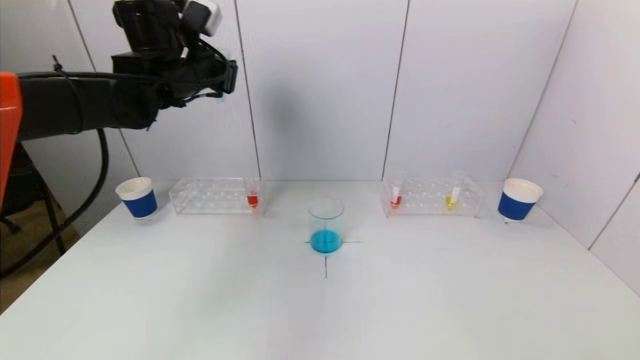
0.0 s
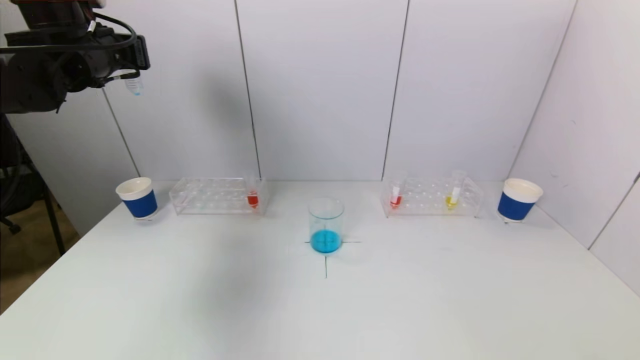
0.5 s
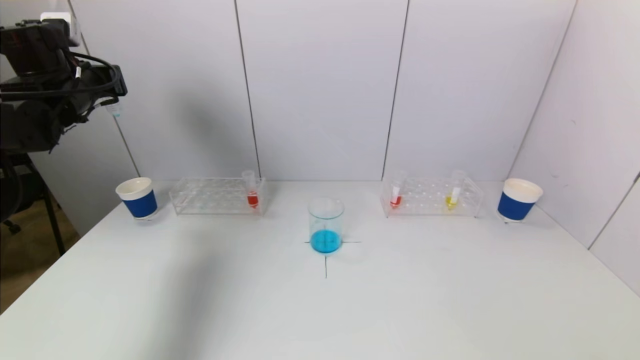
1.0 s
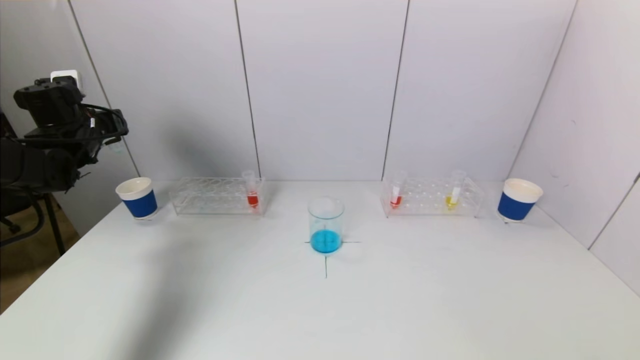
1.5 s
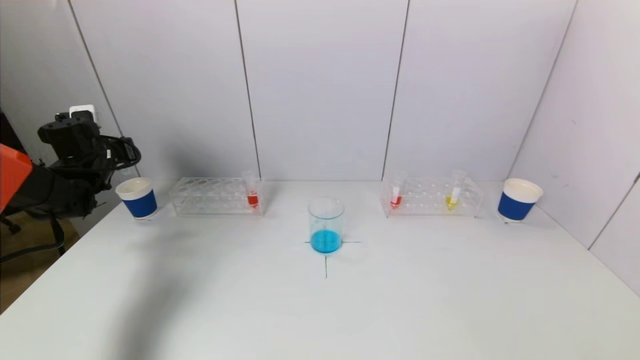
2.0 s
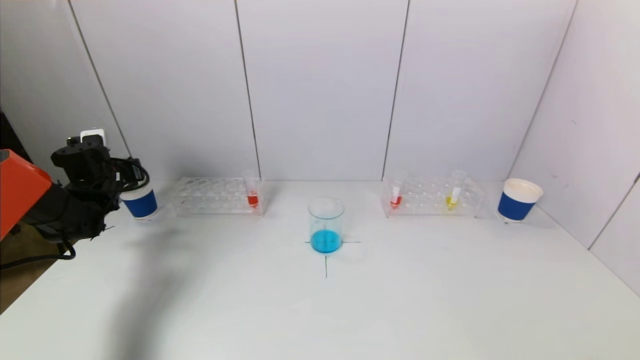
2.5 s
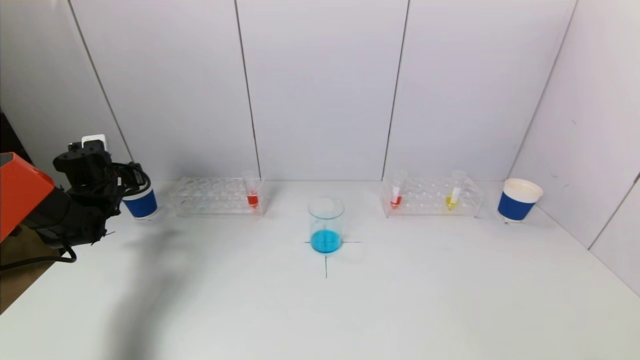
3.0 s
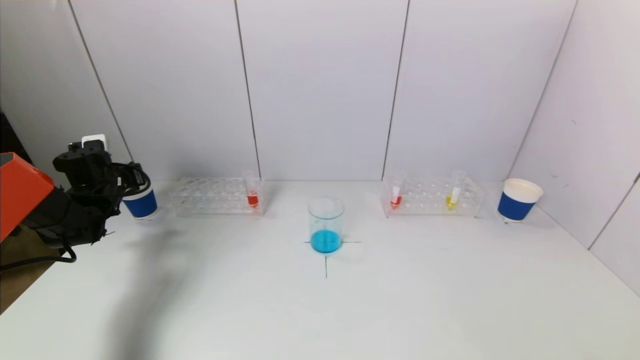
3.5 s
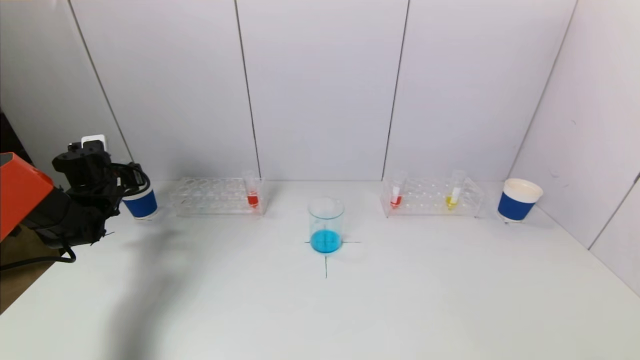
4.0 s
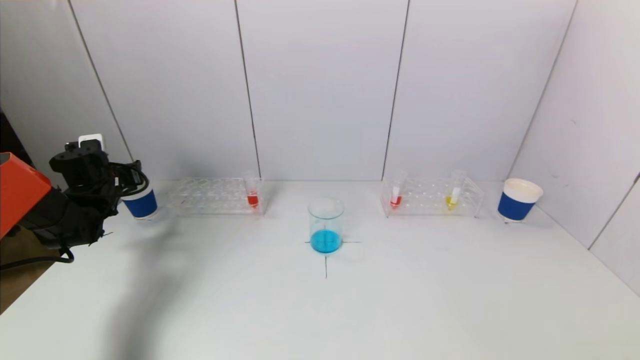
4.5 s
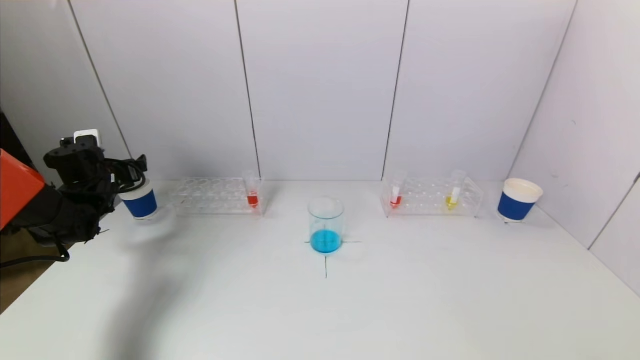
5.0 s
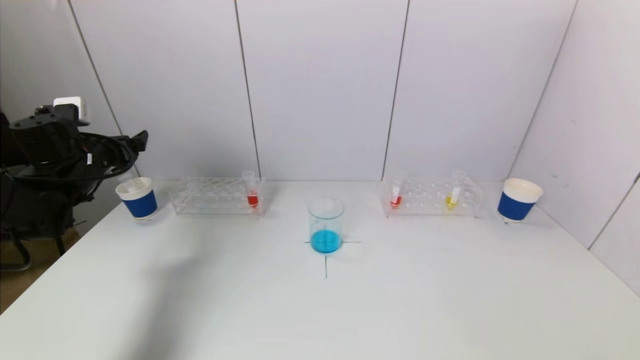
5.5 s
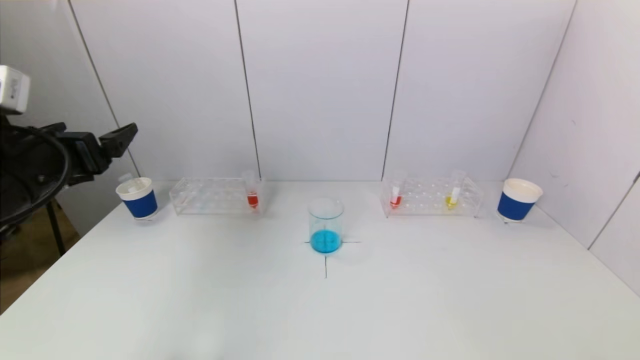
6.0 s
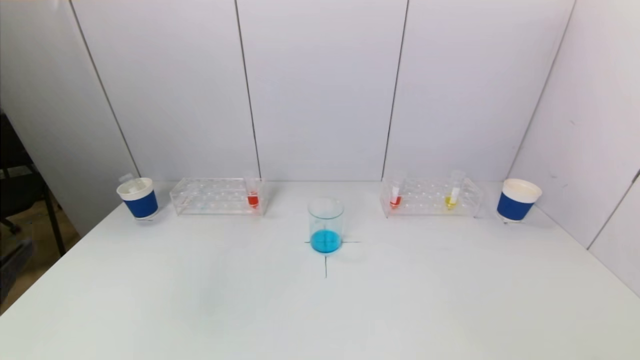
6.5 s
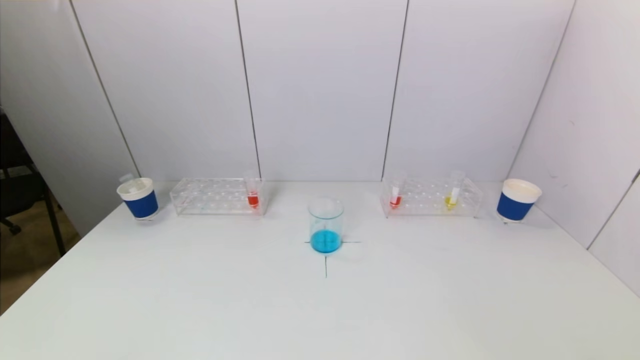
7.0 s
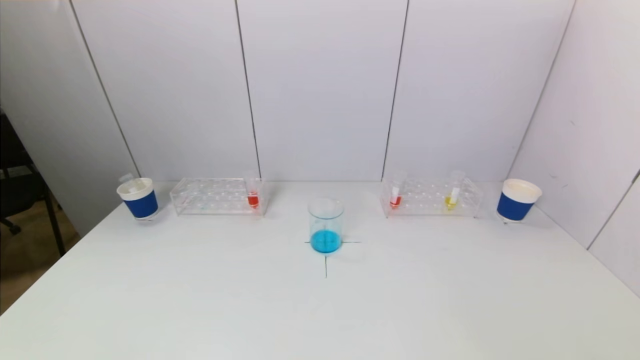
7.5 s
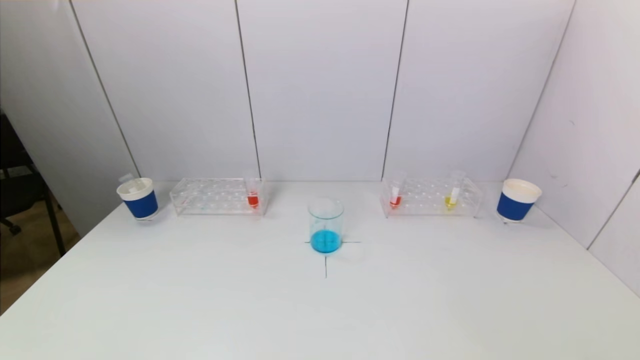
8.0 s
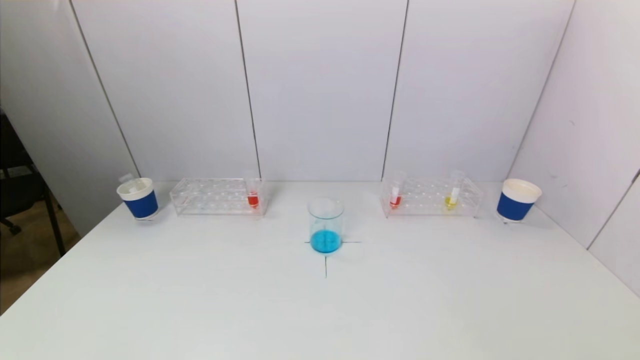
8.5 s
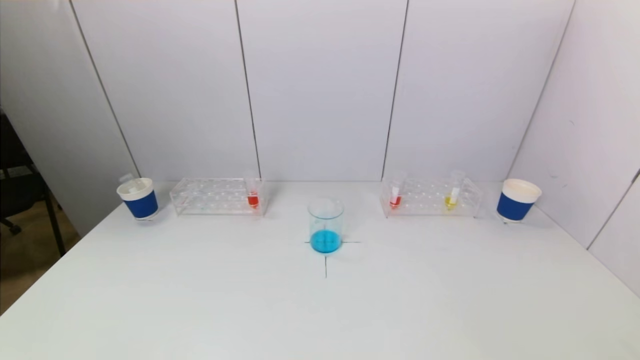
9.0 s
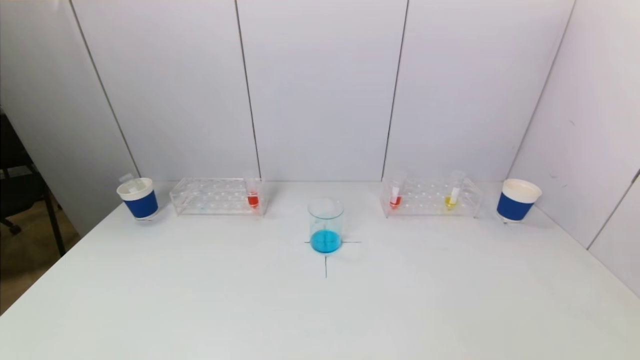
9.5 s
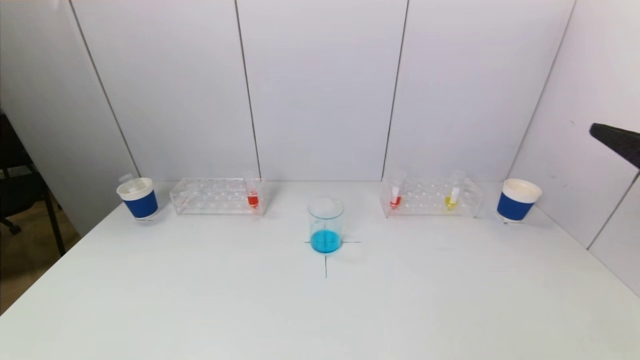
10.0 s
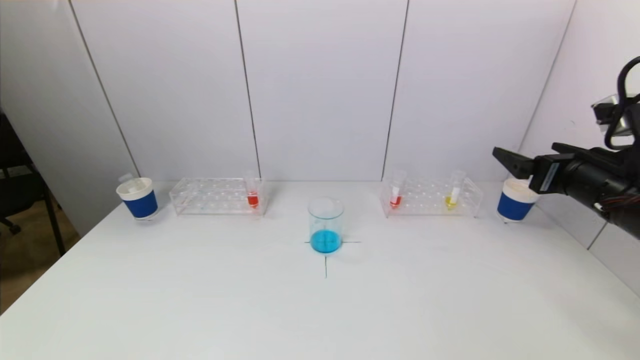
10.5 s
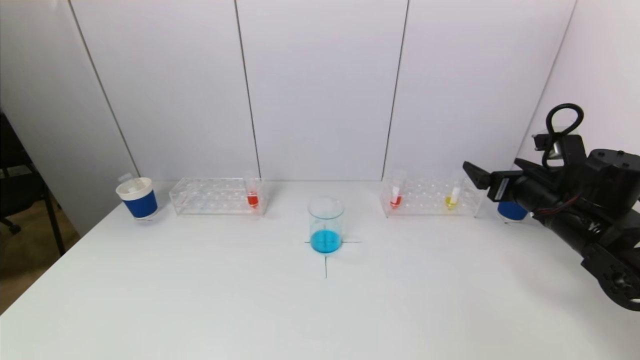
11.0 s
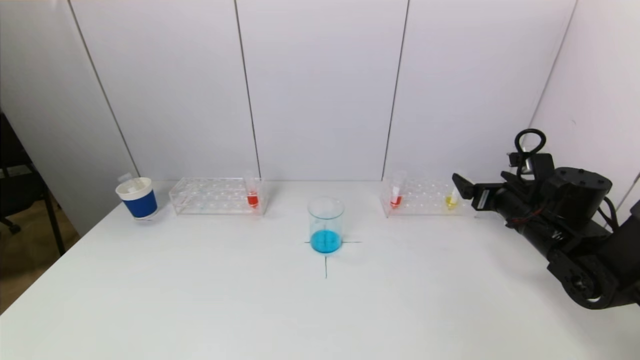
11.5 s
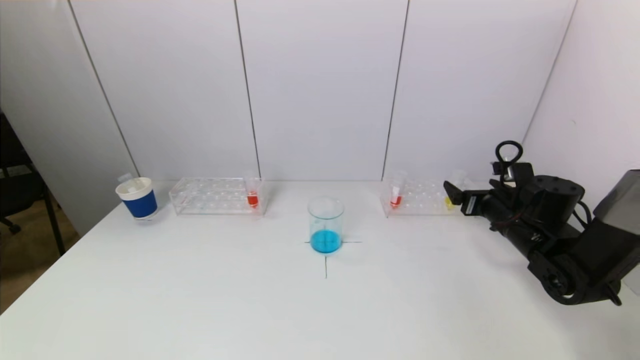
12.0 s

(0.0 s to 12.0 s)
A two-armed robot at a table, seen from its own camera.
Task of the whole recording: pick up a test tube with pigment on left test tube rack and a test tube with pigment on right test tube rack by grippers and pour them into the beaker.
Step, 0.0 s - 4.5 s: Place the test tube into the paper cup with the left gripper.
0.0 s - 2.0 s: The left gripper shifts some 25 cm to the left and downward.
2.0 s - 4.0 s: The left gripper heads downward, covering about 5 cm.
4.0 s - 6.0 s: The left gripper shifts approximately 30 cm backward, upward and to the right, and opens.
6.0 s - 8.0 s: The left gripper is displaced backward and downward by approximately 30 cm.
8.0 s - 10.0 s: The right gripper heads upward and forward, covering approximately 25 cm.
10.0 s - 12.0 s: The right gripper travels forward and downward by about 30 cm.

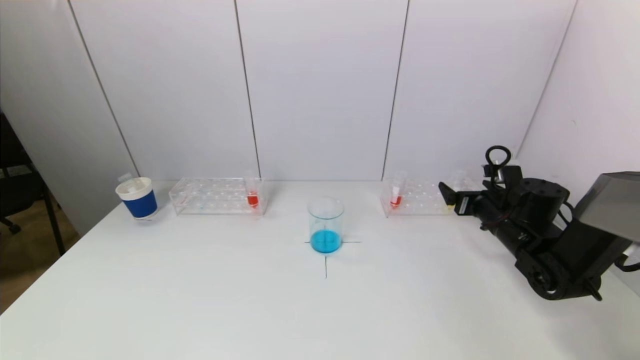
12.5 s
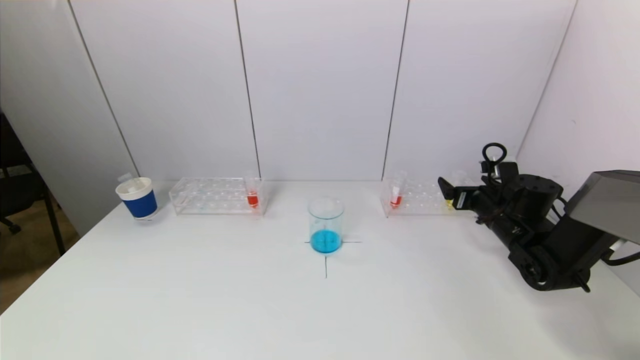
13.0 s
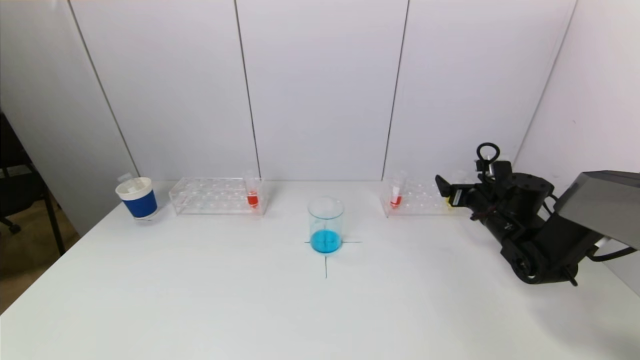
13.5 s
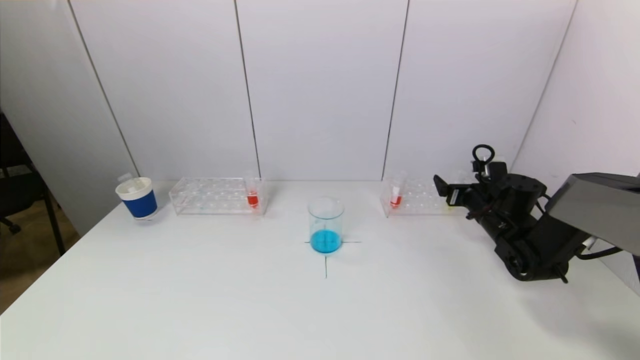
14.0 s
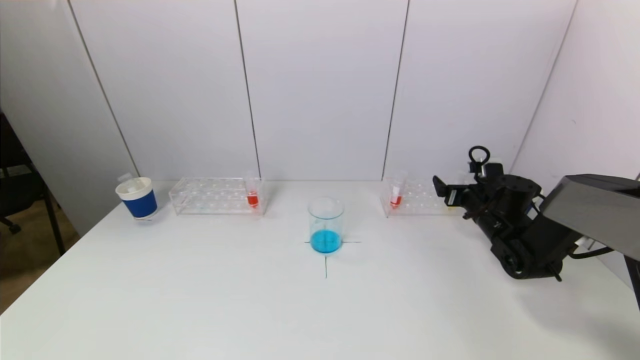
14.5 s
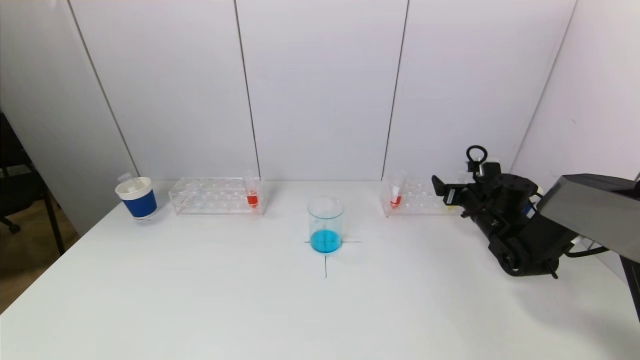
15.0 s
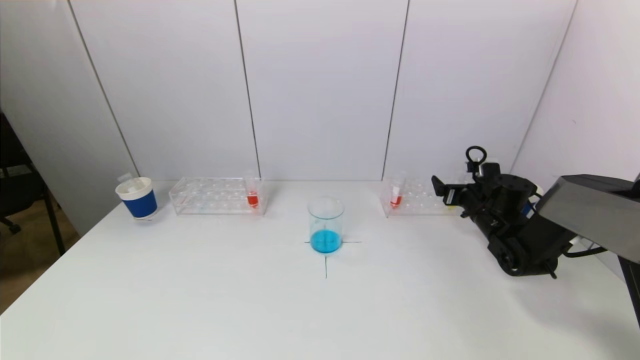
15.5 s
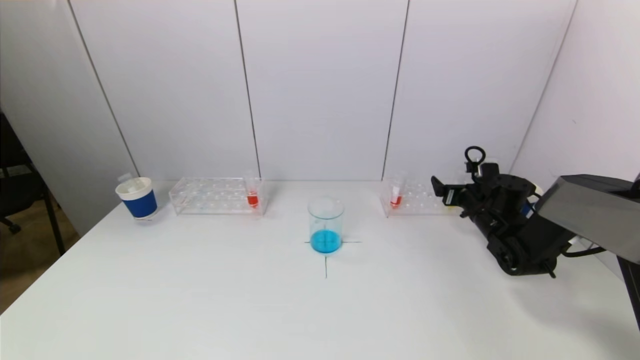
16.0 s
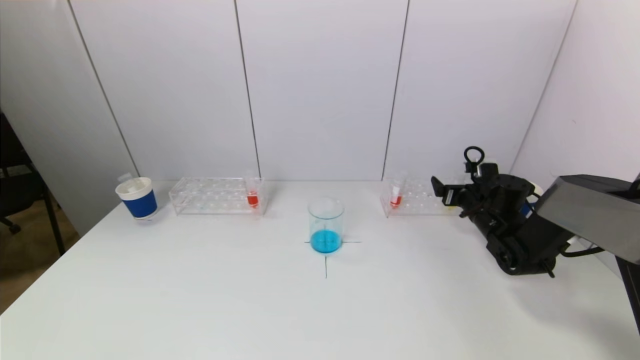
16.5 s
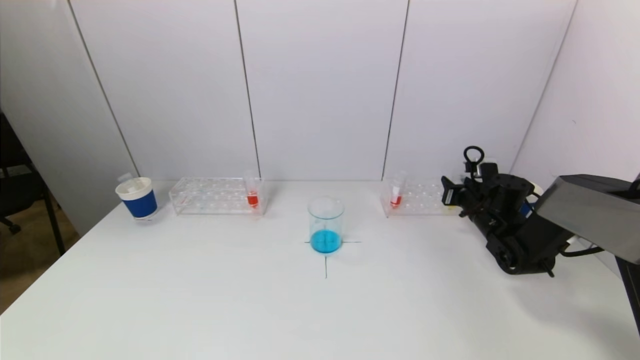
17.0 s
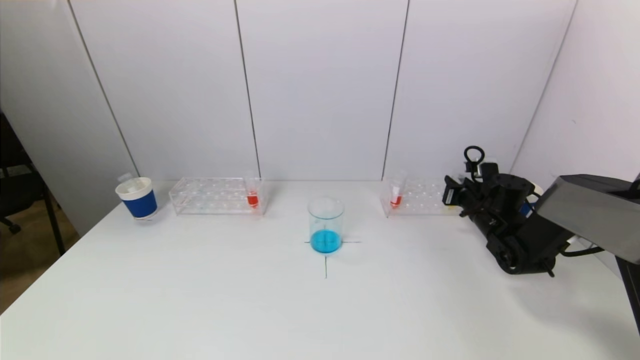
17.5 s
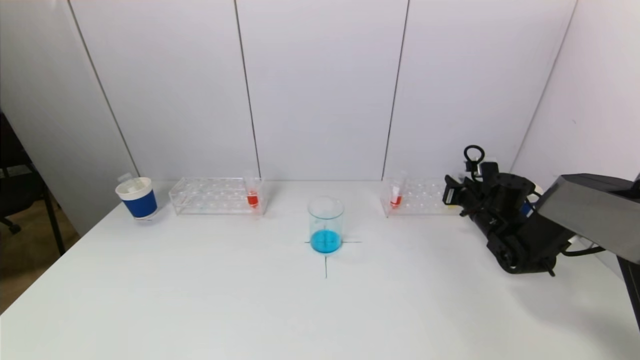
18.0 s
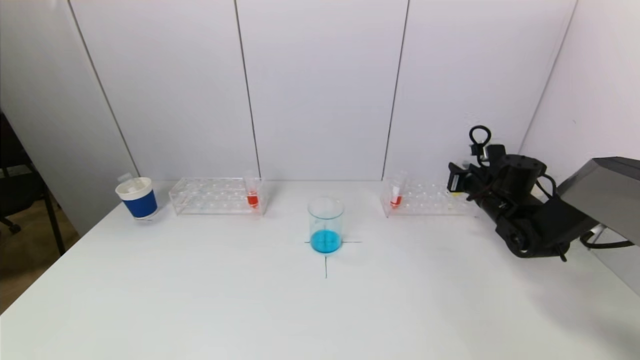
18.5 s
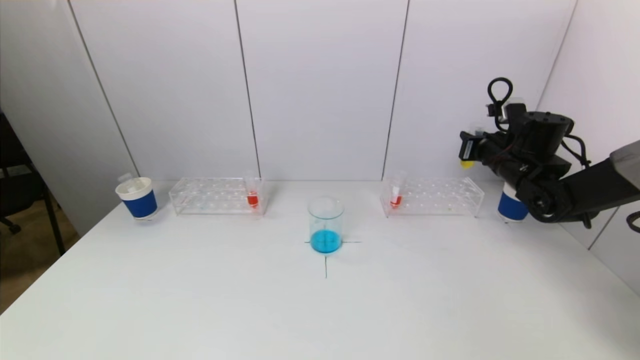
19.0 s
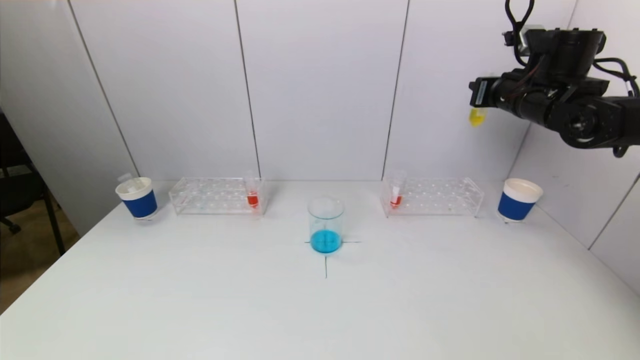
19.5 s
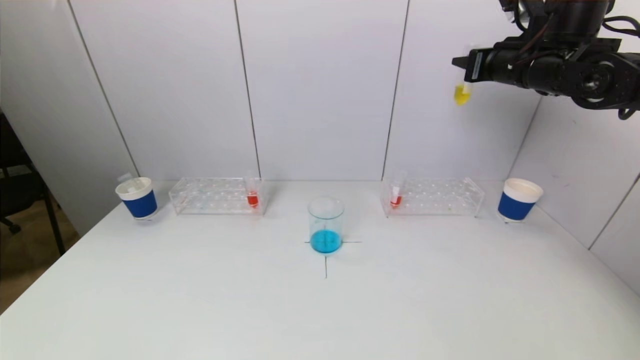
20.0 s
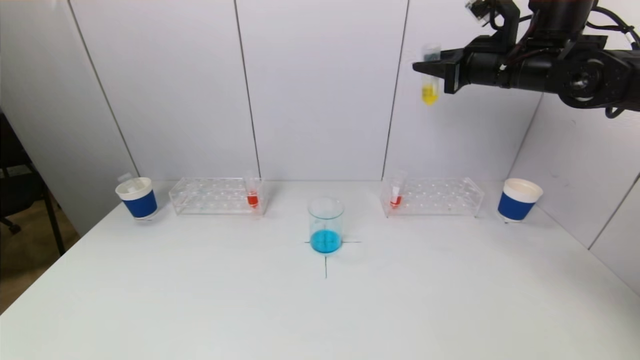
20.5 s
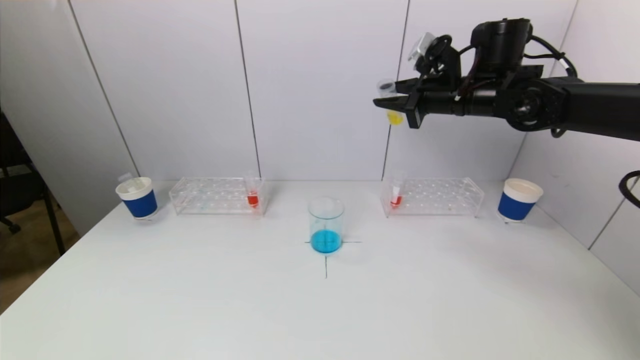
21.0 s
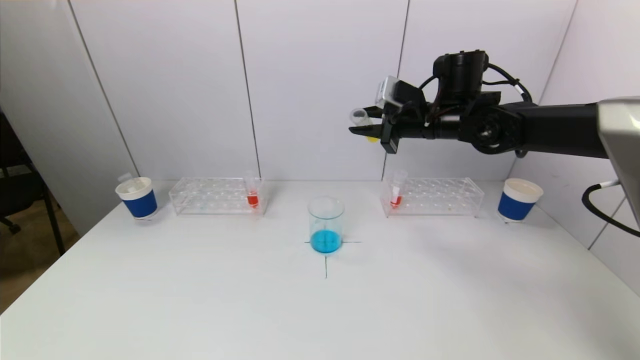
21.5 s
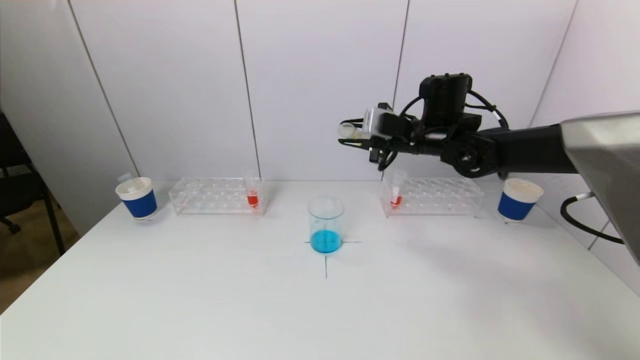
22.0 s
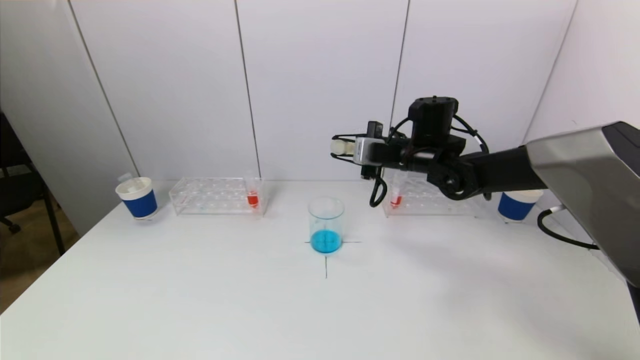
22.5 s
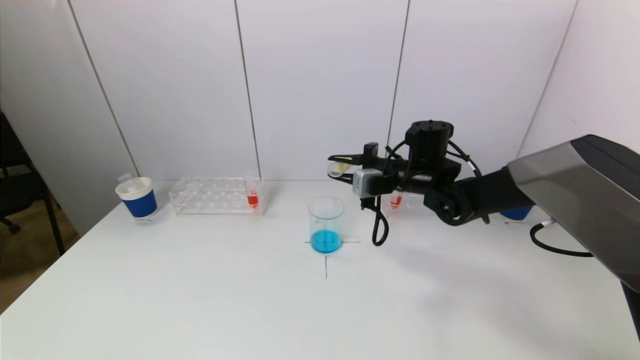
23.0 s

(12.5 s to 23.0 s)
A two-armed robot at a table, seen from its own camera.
Task of the whole recording: pick up a test tube with pigment on left test tube rack and a test tube with pigment on right test tube rack by grippers and pour them into the beaker.
Step, 12.5 s - 17.0 s: Grasp the yellow reagent with the right gripper.
12.5 s - 14.5 s: The right gripper is displaced forward by approximately 5 cm.
14.5 s - 16.5 s: Both grippers stay put.
16.5 s - 19.0 s: The right gripper travels upward by roughly 10 cm, and closes.
19.0 s - 21.0 s: The right gripper heads upward and to the left, covering some 15 cm.
21.0 s - 23.0 s: The right gripper shifts approximately 15 cm downward and to the left.
